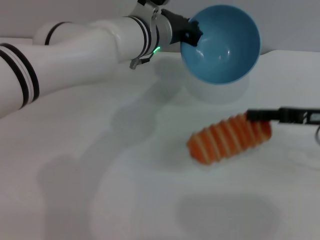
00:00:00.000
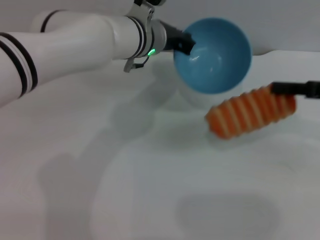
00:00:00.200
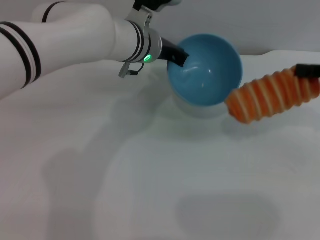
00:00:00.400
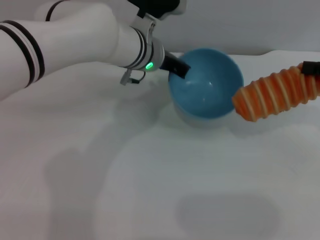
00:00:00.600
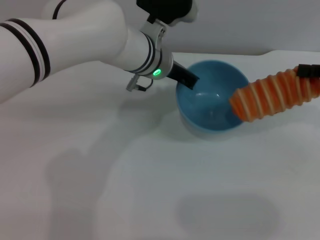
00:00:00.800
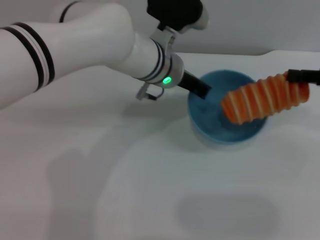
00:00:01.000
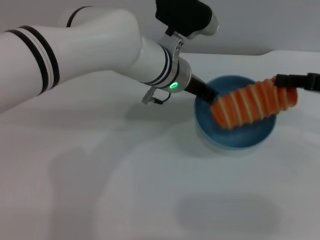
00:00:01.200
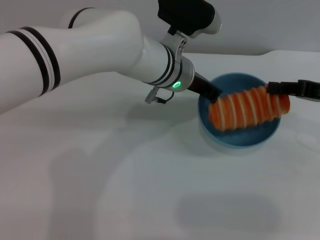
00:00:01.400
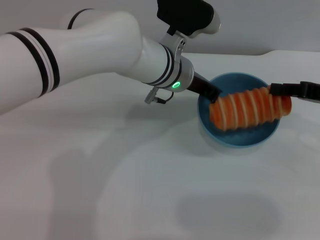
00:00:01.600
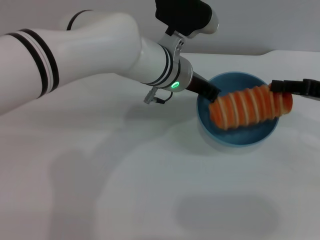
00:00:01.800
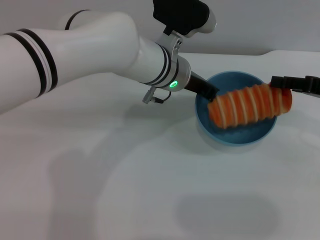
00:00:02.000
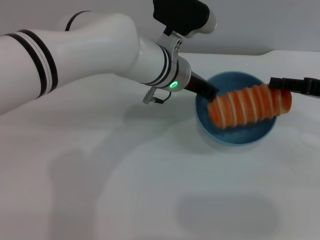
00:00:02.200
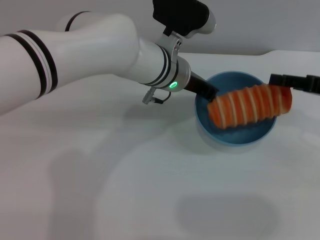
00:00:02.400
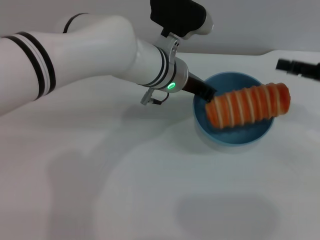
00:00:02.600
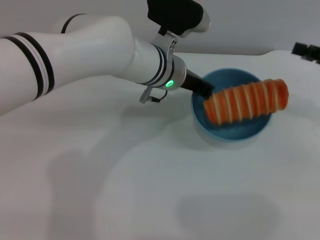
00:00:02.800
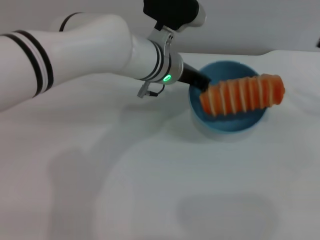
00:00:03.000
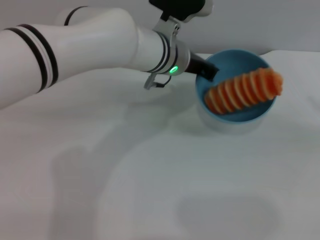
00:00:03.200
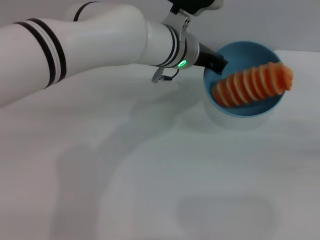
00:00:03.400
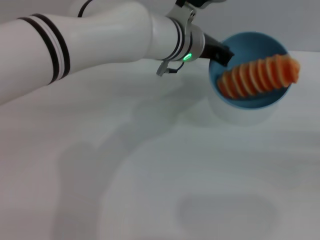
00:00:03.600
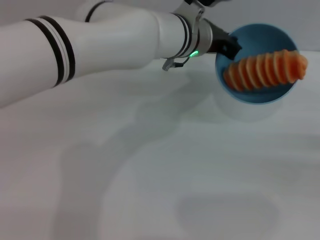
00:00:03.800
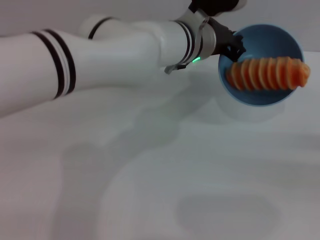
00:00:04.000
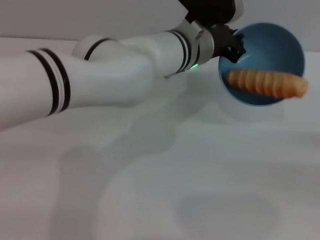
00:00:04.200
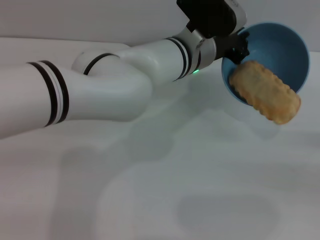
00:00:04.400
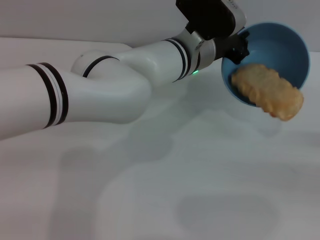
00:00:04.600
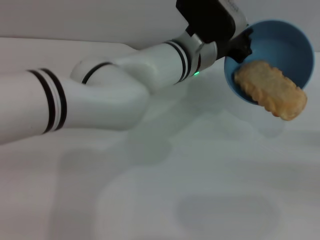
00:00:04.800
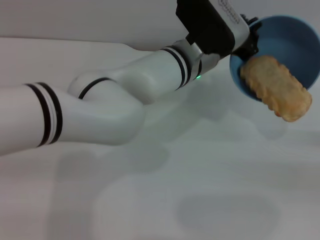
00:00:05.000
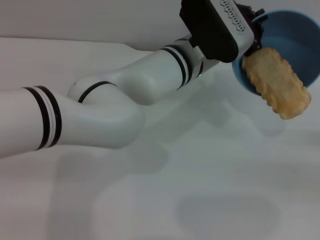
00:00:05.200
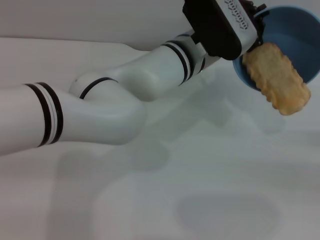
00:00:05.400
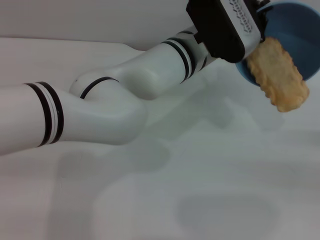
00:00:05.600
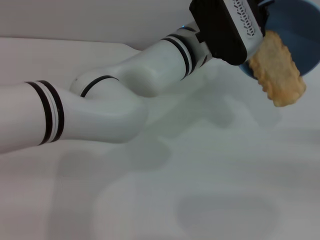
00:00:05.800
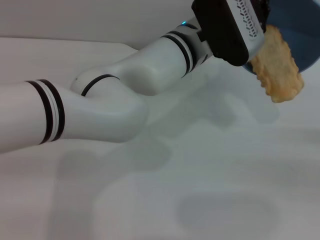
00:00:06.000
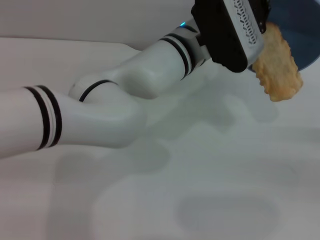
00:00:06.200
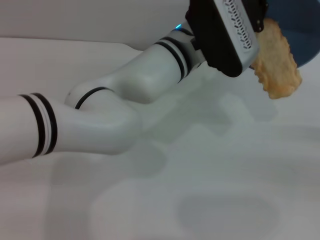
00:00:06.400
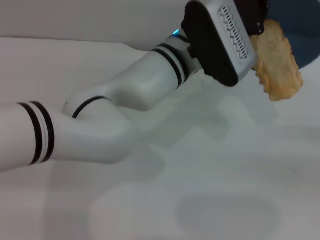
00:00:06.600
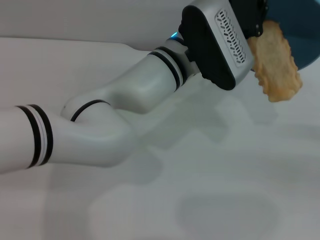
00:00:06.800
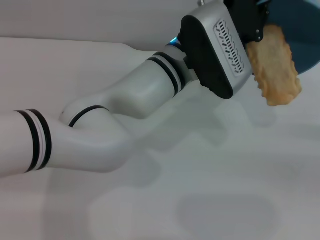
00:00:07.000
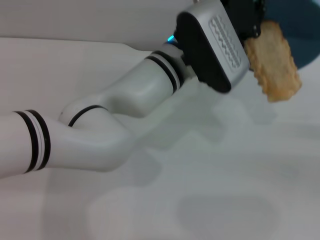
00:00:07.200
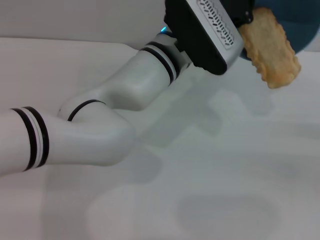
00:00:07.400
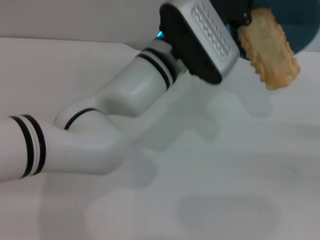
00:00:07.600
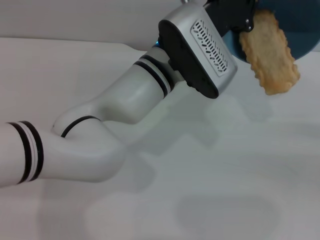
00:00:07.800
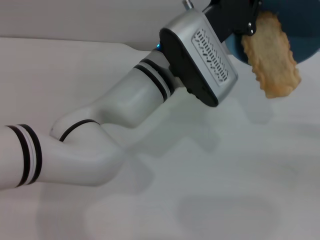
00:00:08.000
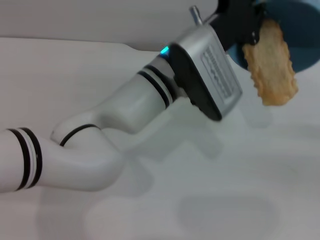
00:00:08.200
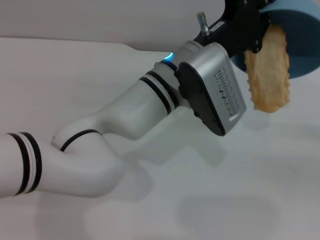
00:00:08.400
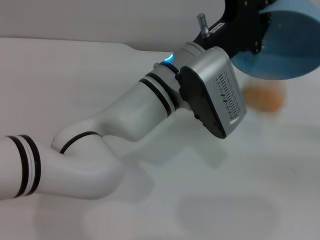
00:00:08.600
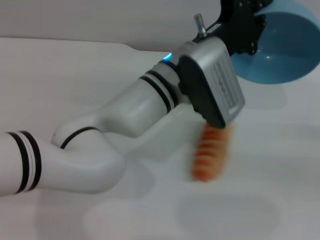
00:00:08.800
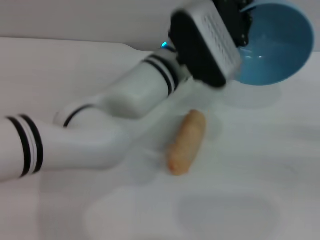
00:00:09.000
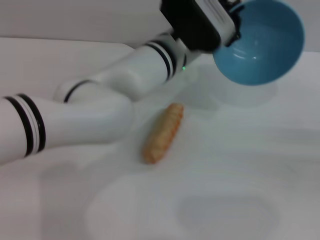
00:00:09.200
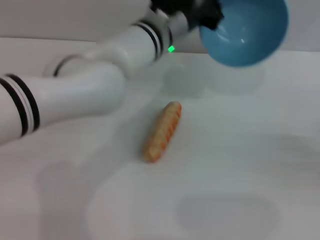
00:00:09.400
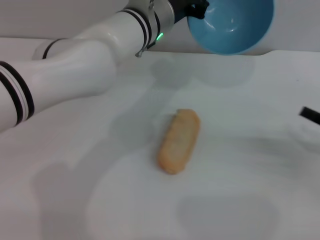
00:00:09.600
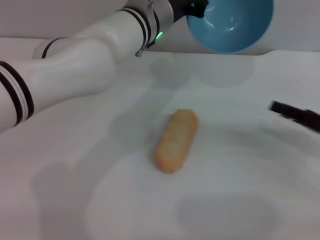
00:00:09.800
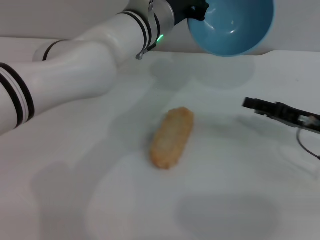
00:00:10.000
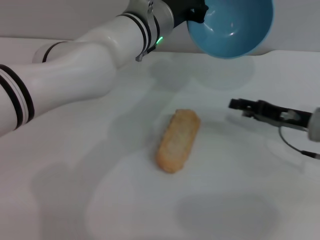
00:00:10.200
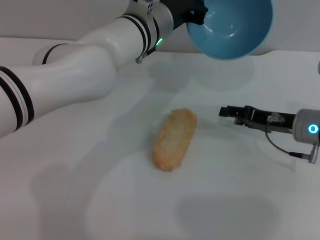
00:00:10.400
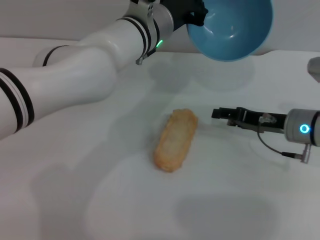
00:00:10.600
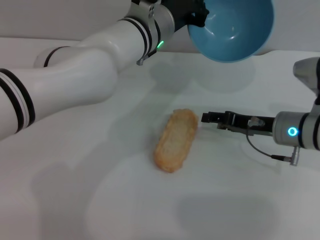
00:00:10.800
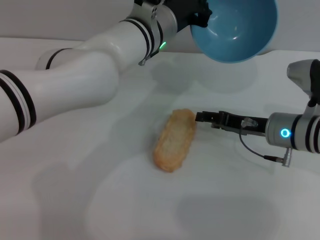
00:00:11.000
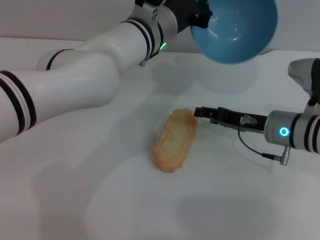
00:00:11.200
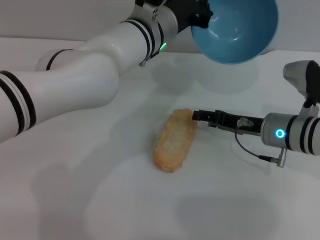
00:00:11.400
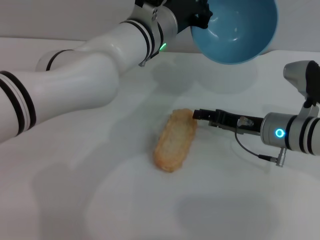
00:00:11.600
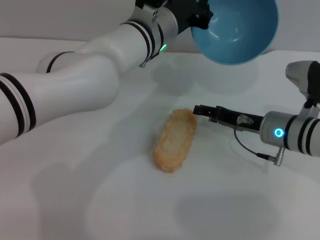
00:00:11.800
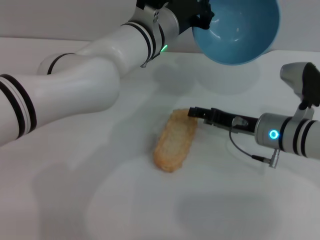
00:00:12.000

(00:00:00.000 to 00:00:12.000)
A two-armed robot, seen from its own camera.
Task of the whole recording: put the bread into the blue bowl and pour it out repeatedly.
Step, 00:00:00.200 - 00:00:02.800: Place the bread into the bowl.
Step, 00:00:03.000 - 00:00:08.800: Pour the bread out of the bowl.
00:00:01.600 - 00:00:03.000: The right gripper goes about 5 cm to the right, and opens its fingers.
00:00:03.000 - 00:00:04.400: The right gripper is displaced backward, downward and to the right by roughly 15 cm.
00:00:06.000 - 00:00:07.600: There are only small adjustments of the grippers.
00:00:07.600 - 00:00:09.000: The grippers make only small movements.
00:00:09.000 - 00:00:10.400: The left gripper goes some 5 cm forward. Meanwhile the right gripper moves to the left and forward, some 20 cm.
00:00:10.400 - 00:00:12.000: The right gripper goes some 5 cm to the left.

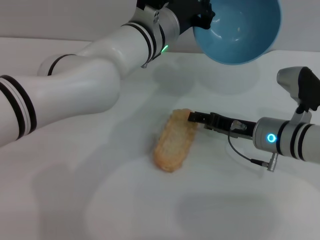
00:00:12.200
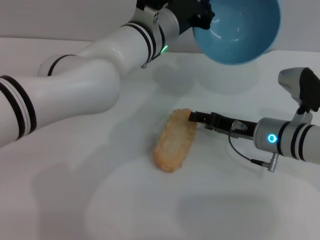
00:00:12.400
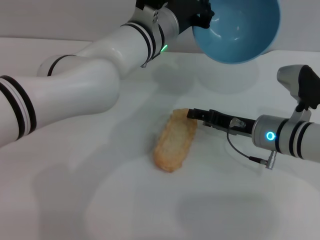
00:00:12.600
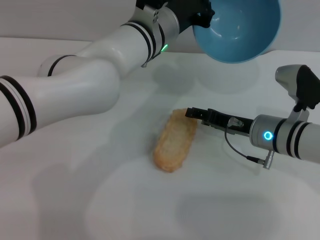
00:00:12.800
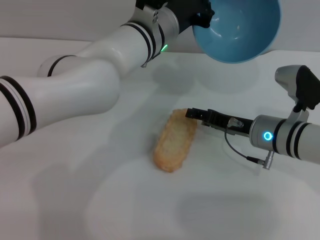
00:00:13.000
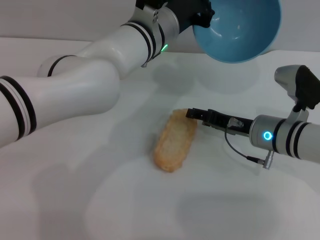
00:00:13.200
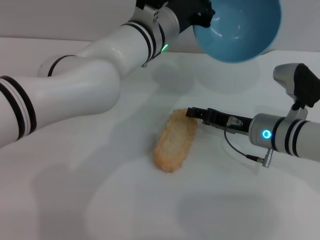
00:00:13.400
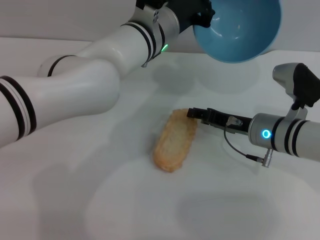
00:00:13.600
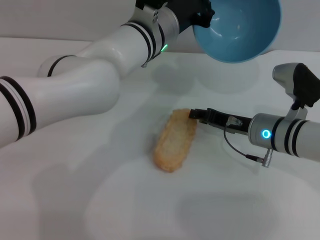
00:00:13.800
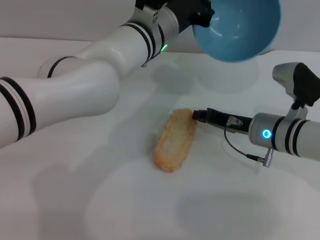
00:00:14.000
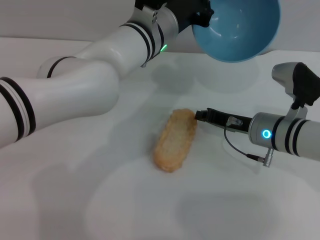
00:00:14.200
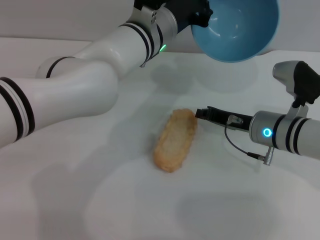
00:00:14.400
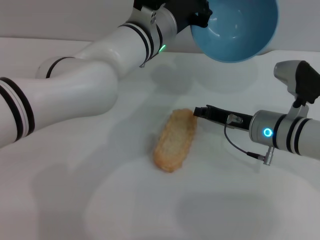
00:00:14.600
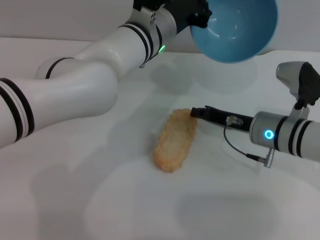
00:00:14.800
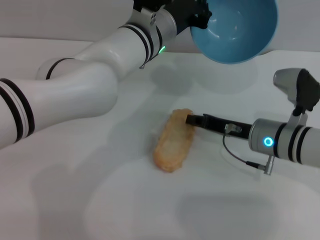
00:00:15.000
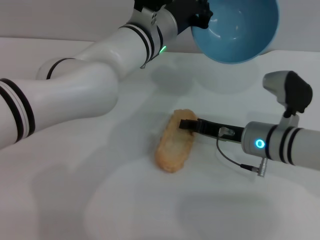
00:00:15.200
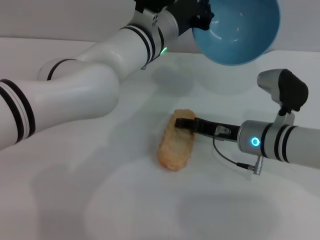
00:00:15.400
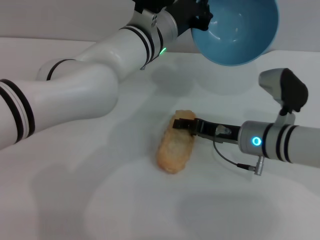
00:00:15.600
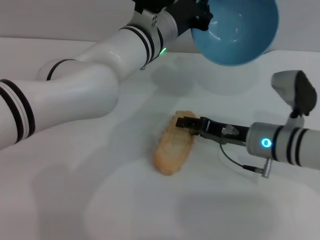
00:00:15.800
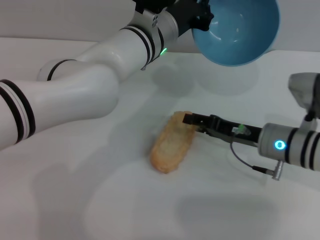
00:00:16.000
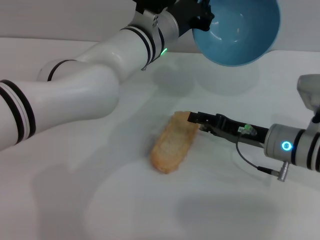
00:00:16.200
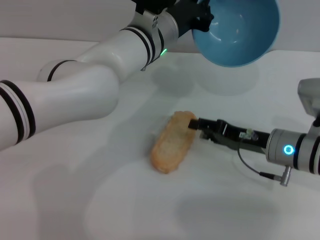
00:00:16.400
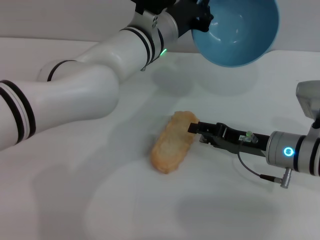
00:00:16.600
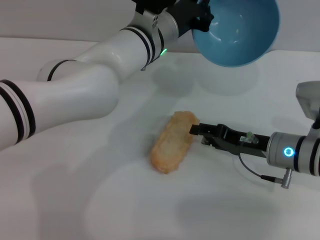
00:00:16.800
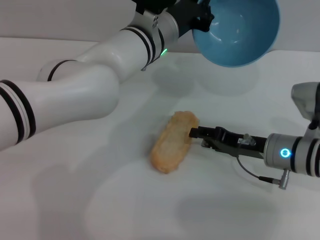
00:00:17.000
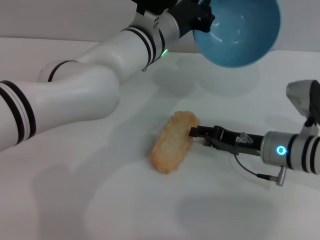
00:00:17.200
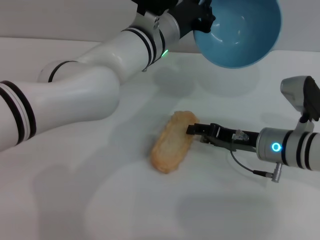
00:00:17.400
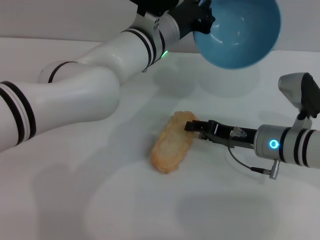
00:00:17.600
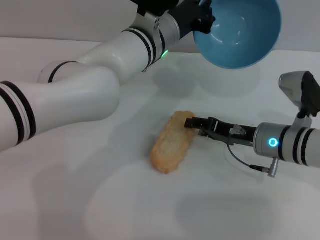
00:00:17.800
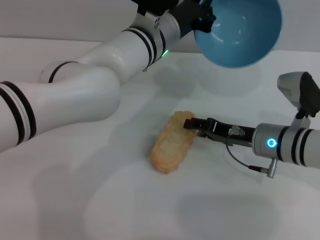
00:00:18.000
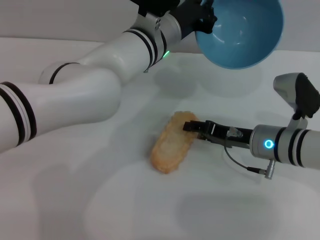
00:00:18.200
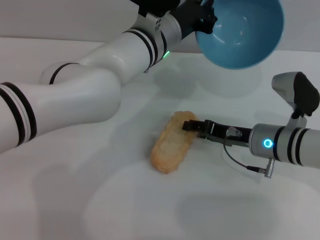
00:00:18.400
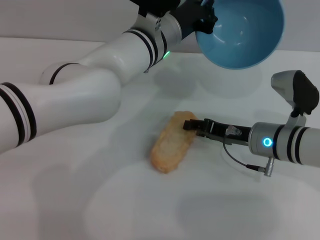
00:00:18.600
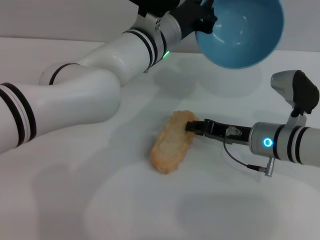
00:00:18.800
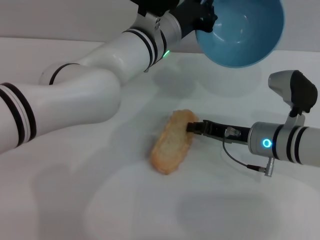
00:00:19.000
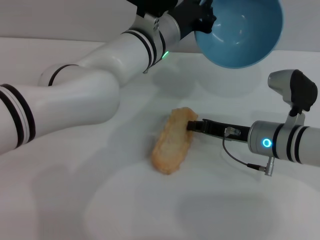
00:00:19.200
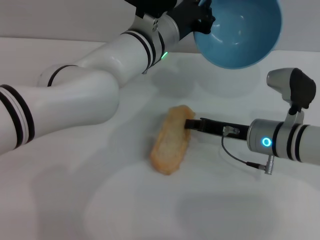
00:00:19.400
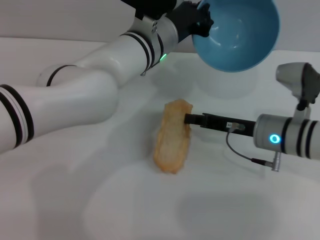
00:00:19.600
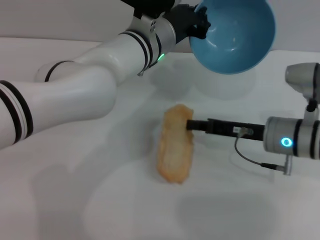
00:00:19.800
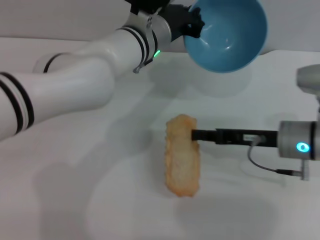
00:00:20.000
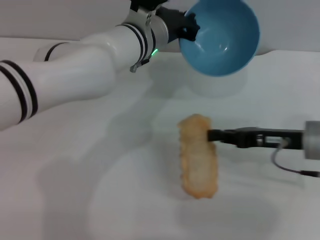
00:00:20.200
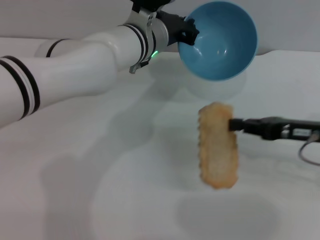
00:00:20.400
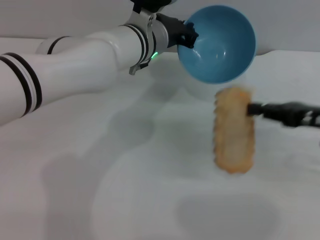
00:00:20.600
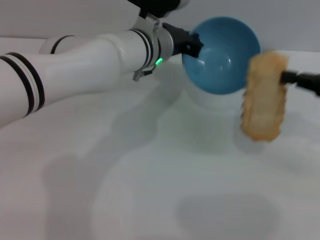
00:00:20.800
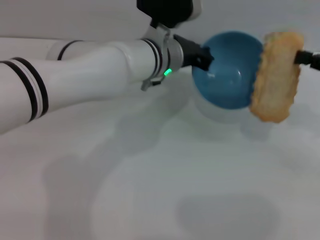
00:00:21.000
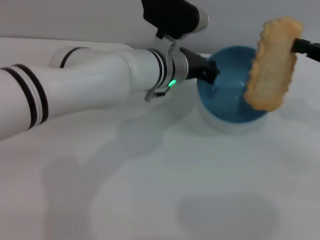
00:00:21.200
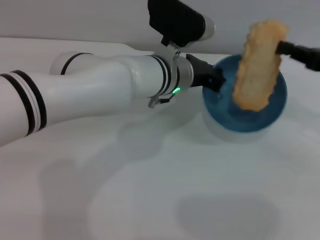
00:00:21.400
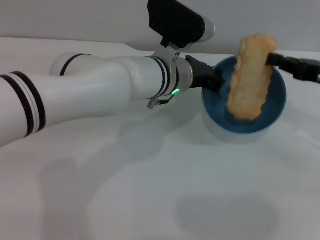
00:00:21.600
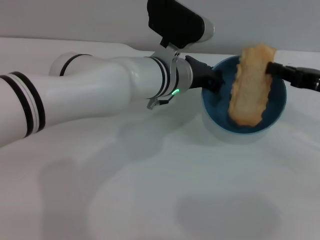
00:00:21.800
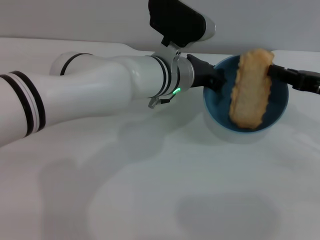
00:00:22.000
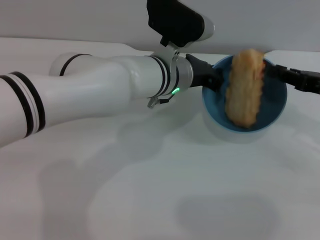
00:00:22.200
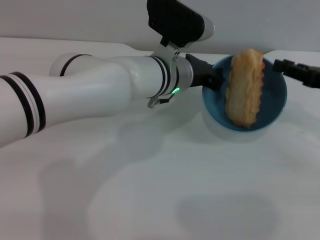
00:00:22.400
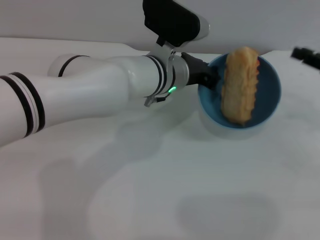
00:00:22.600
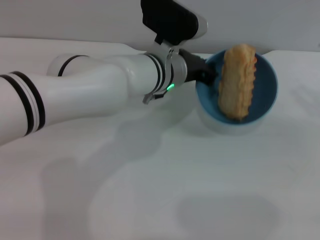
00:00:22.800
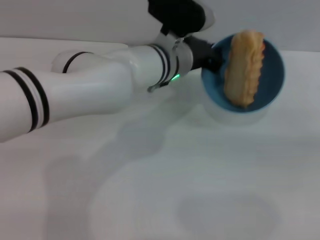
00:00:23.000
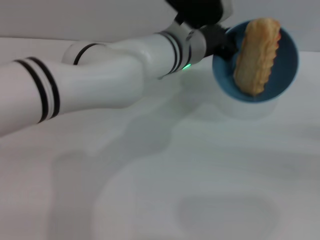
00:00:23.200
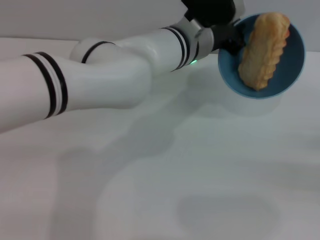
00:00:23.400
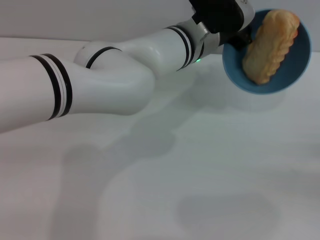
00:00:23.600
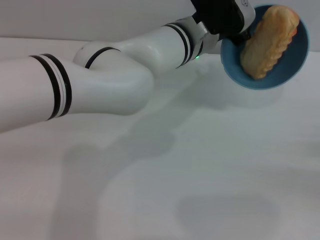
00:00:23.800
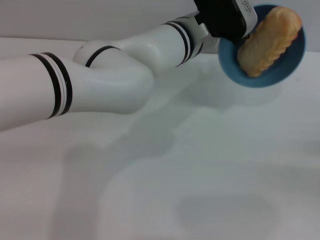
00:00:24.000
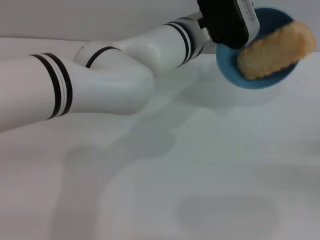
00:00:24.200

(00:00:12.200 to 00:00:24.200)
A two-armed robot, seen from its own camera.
Task of the whole recording: put the bread into the blue bowl and pour it out repeatedly.
Step, 00:00:12.200 - 00:00:20.000: Pick up the bread with the right gripper.
Step, 00:00:20.400 - 00:00:22.600: Place the bread into the bowl.
00:00:12.200 - 00:00:13.800: The two grippers keep their place.
00:00:13.800 - 00:00:15.200: The right gripper closes its fingers.
00:00:15.200 - 00:00:16.600: The right gripper opens up.
00:00:16.600 - 00:00:18.200: The grippers stay close to where they were, moving slightly.
00:00:18.200 - 00:00:19.800: The right gripper closes up.
00:00:19.800 - 00:00:21.200: The right gripper goes about 15 cm to the right and upward.
00:00:21.200 - 00:00:22.600: The right gripper opens up.
00:00:22.600 - 00:00:24.200: The right gripper travels backward, to the right and downward by approximately 15 cm. The left gripper moves roughly 5 cm.
